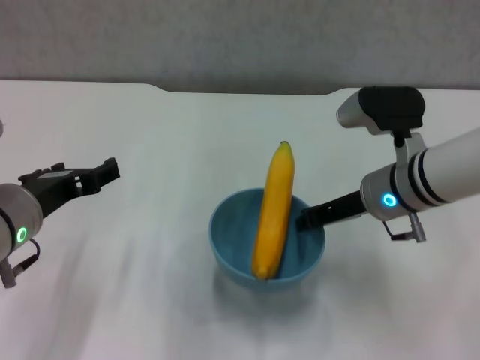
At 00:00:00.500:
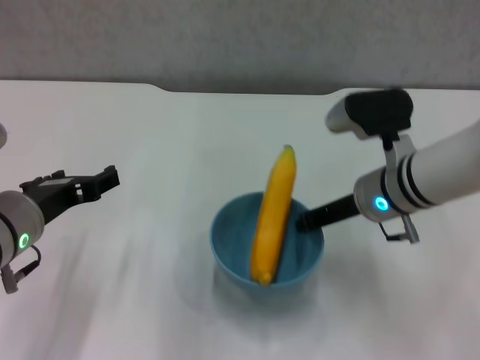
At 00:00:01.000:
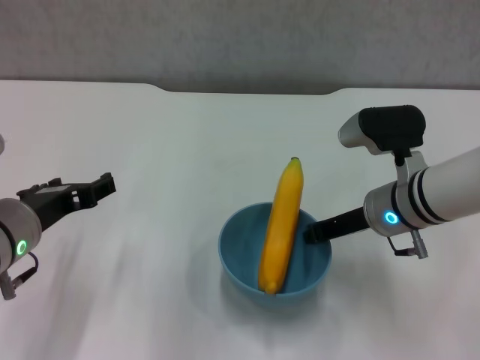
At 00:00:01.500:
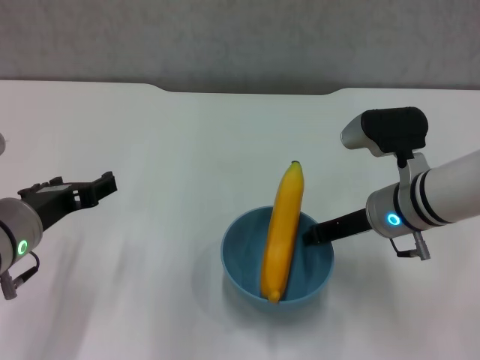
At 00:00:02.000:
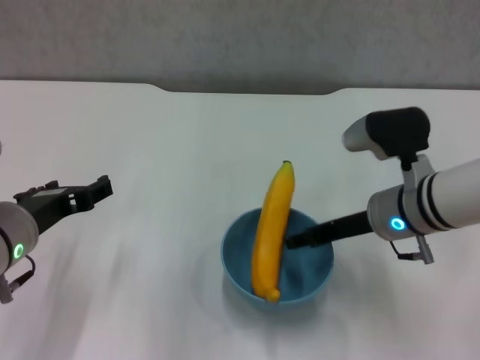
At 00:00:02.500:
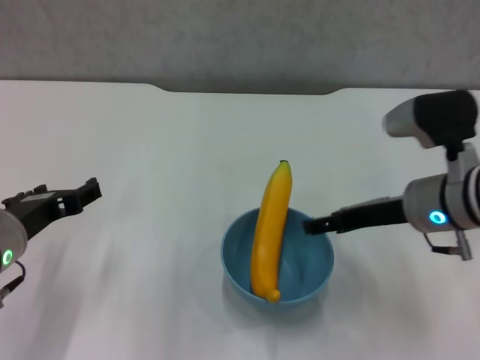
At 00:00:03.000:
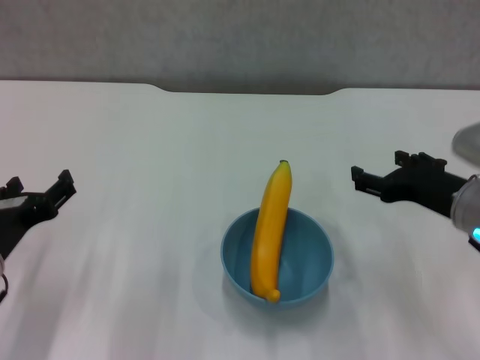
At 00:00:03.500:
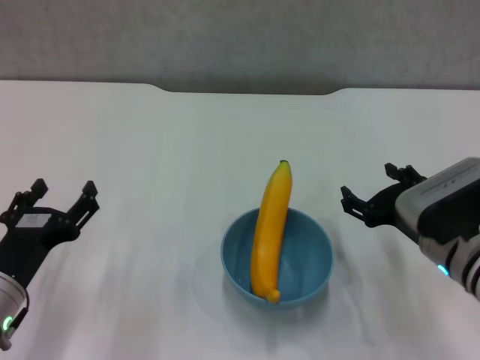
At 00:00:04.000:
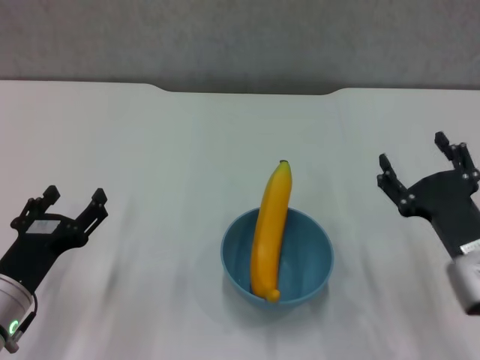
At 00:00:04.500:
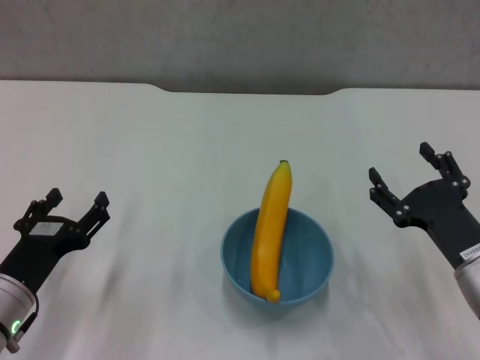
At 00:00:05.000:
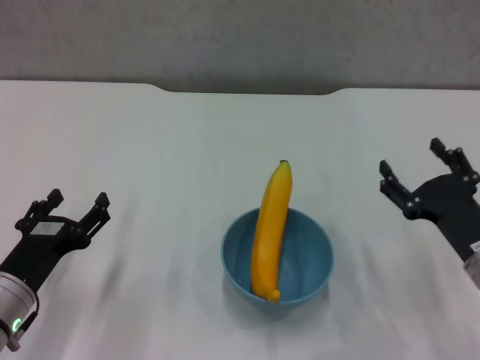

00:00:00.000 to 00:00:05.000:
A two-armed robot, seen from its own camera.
Step, 00:00:00.000 to 00:00:02.000: Place the bowl on the table with right gripper.
00:00:00.000 to 00:00:02.500: The right gripper shifts by roughly 5 cm, and opens.
00:00:02.500 to 00:00:05.000: The right gripper moves downward, backward and to the right, approximately 15 cm; the left gripper travels downward by roughly 10 cm.
